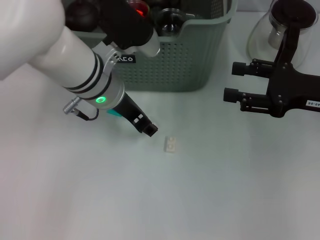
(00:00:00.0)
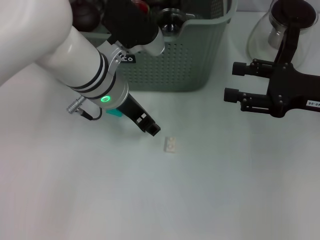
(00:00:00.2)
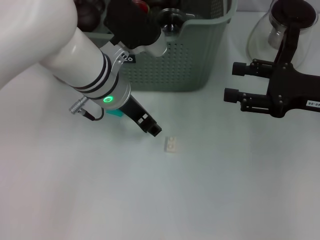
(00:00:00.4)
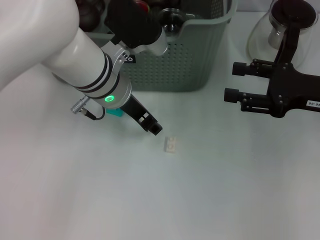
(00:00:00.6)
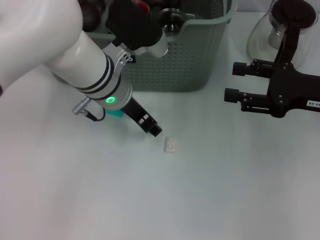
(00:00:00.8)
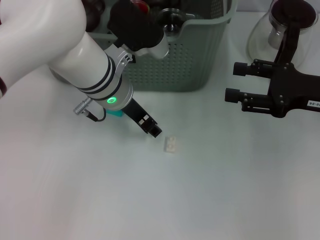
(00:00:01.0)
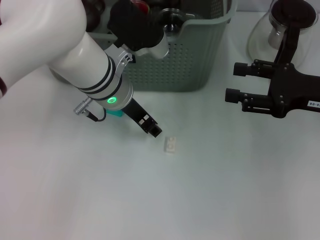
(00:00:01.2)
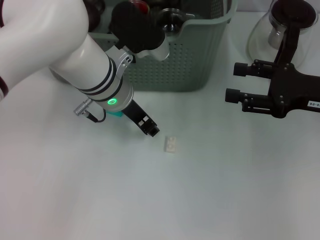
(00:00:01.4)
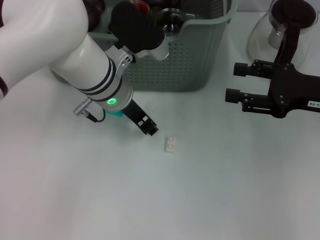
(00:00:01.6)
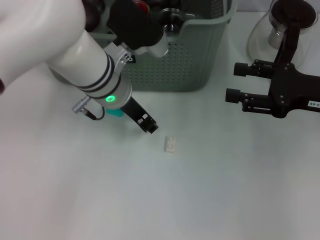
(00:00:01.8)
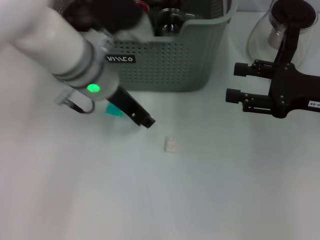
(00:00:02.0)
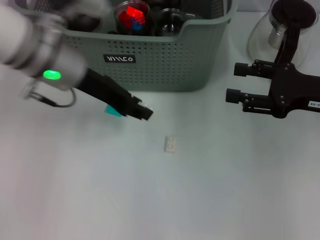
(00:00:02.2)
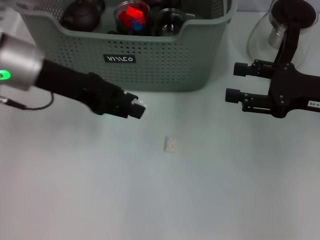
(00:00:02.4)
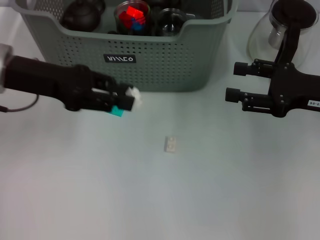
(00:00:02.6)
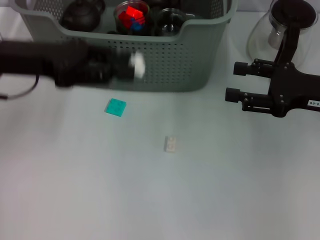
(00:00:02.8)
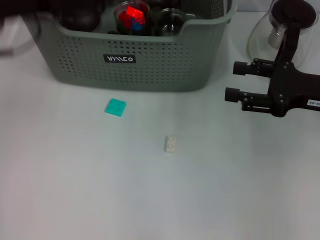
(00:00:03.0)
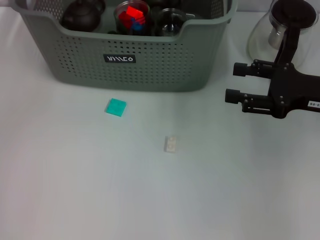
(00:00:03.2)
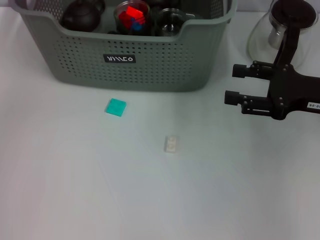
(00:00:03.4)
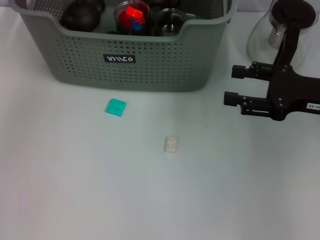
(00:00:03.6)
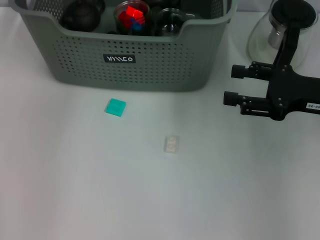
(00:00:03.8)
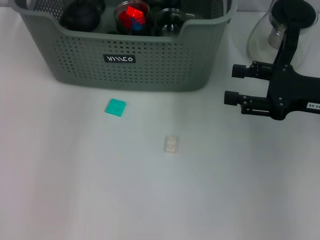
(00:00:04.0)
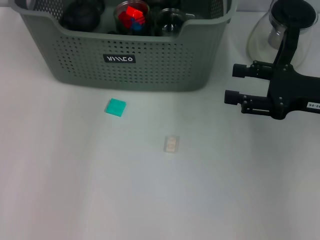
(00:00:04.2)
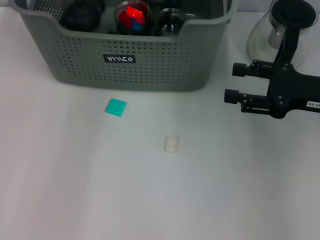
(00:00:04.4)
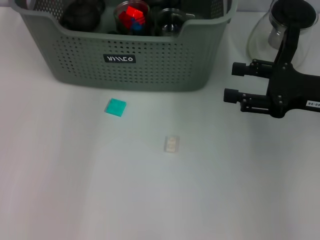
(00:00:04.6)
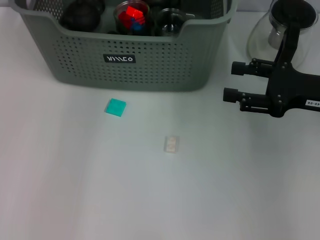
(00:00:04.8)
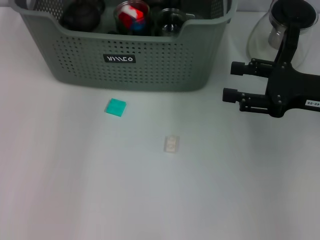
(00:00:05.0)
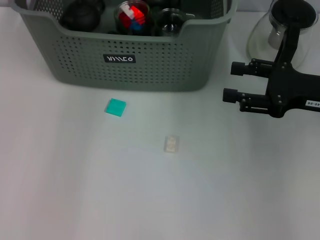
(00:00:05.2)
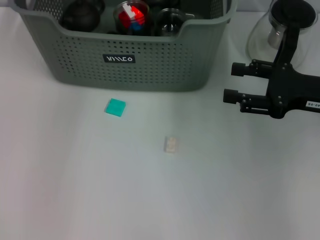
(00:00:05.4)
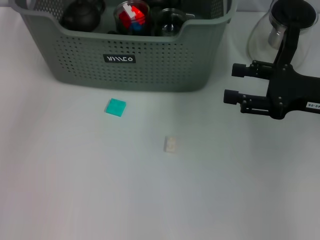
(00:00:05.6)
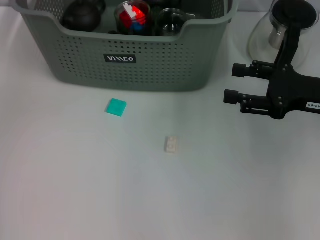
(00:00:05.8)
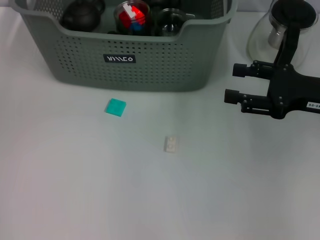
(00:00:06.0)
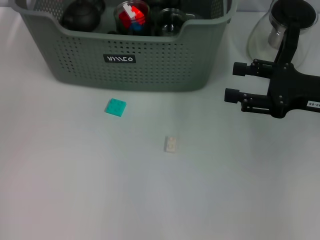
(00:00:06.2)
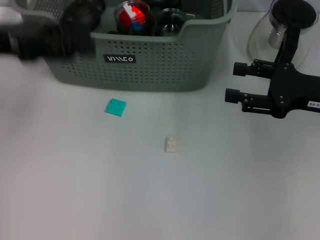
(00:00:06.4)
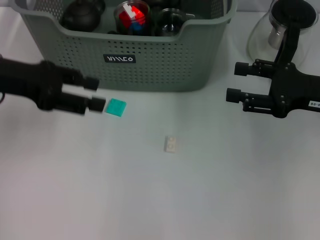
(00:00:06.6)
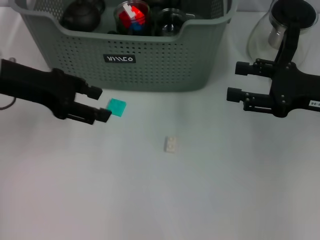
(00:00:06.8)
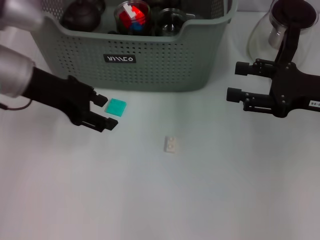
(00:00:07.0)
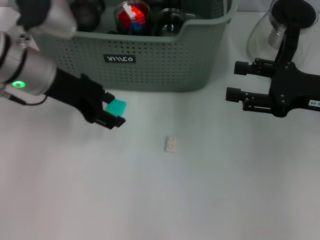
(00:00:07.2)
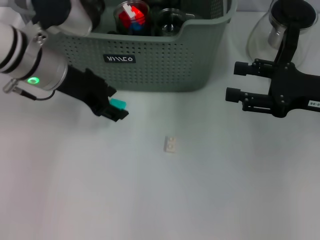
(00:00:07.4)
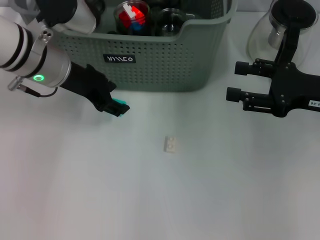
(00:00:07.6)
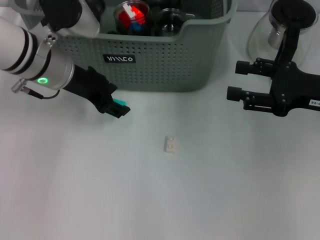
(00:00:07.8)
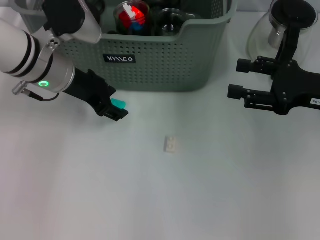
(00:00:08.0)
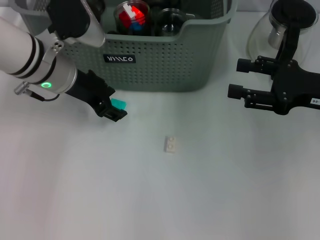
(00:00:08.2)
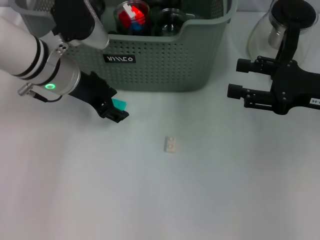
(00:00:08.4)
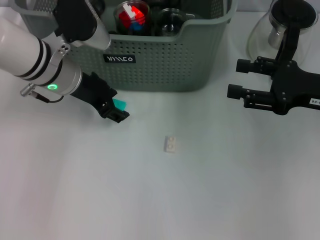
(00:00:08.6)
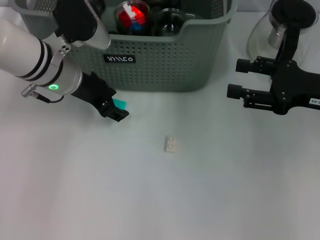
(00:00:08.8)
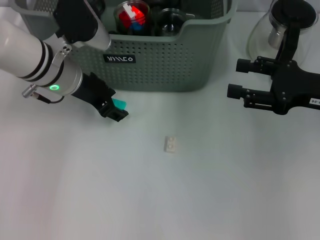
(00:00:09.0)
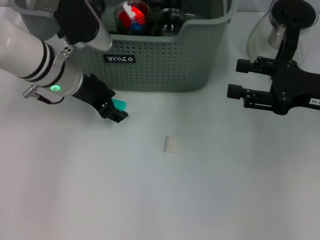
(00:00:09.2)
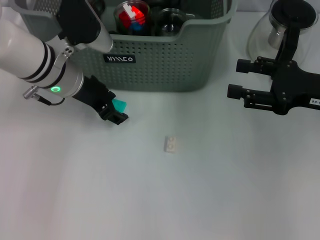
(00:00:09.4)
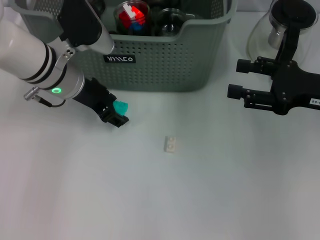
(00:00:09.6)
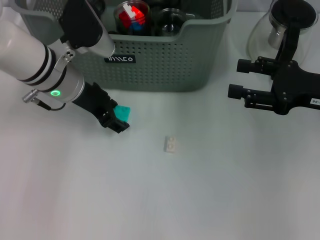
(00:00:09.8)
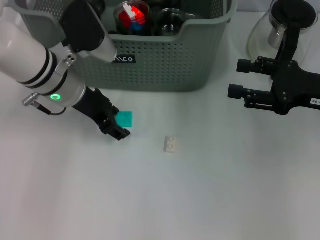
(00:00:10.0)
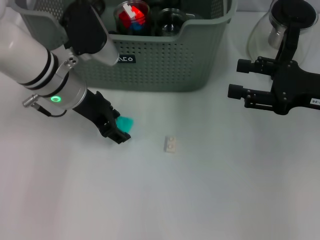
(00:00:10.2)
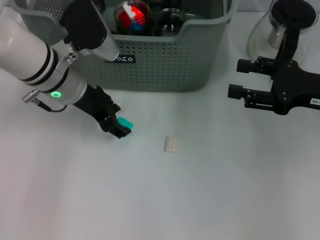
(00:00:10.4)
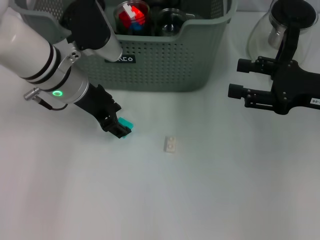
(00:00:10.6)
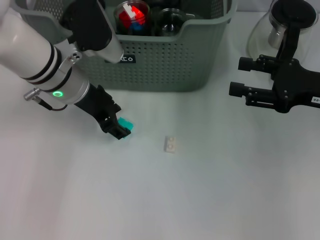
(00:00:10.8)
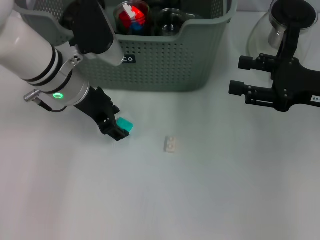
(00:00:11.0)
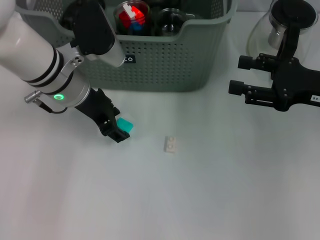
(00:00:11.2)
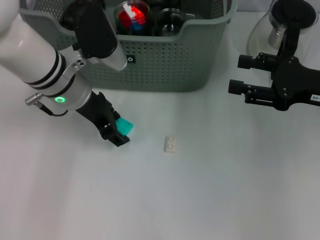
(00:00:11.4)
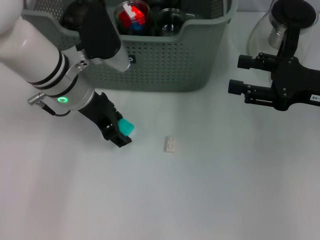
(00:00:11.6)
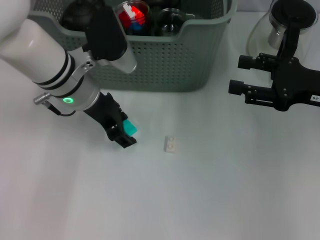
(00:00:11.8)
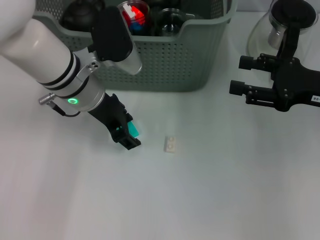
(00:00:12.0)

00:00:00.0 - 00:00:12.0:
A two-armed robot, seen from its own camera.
Task of the whole recording: pick up the teacup on the table and place it into the storage bin, pick up the block on the table and place it into the storage bin.
Step, 00:00:01.6 - 00:00:05.2: Place the white block in the storage box with left gripper.
00:00:00.0 - 00:00:01.6: The grippers make only small movements.
00:00:01.6 - 00:00:03.0: The left gripper heads to the left and upward, covering approximately 20 cm.
00:00:03.0 - 00:00:04.4: The left gripper is displaced forward and to the right by some 15 cm.
00:00:06.0 - 00:00:07.6: The left gripper is displaced to the right and downward by roughly 15 cm.
00:00:07.6 - 00:00:12.0: The grippers make only small movements.
